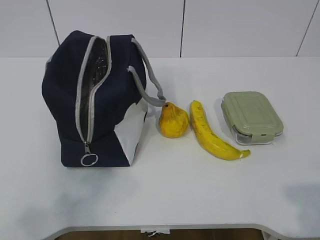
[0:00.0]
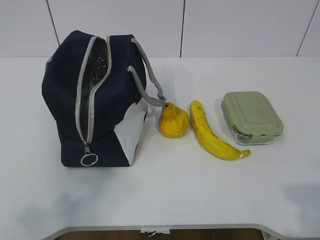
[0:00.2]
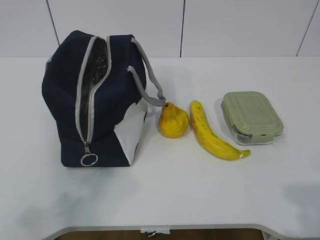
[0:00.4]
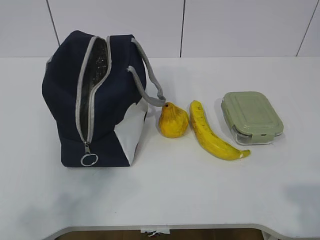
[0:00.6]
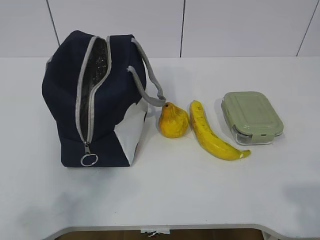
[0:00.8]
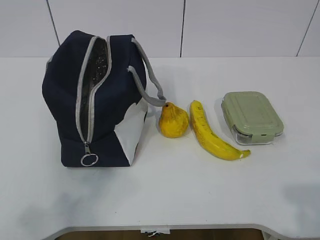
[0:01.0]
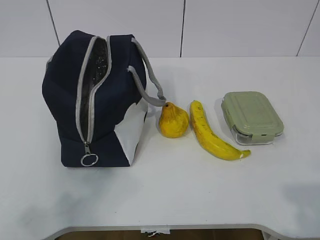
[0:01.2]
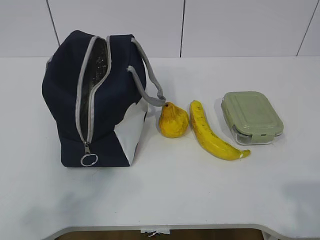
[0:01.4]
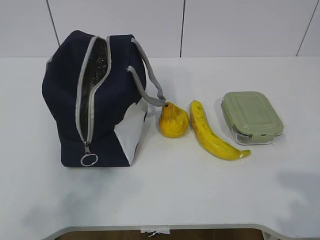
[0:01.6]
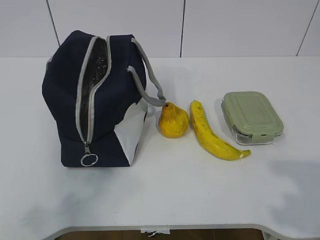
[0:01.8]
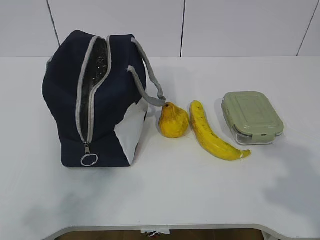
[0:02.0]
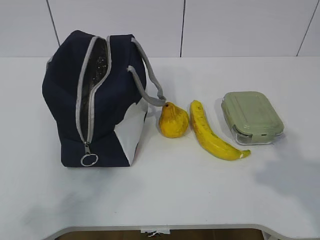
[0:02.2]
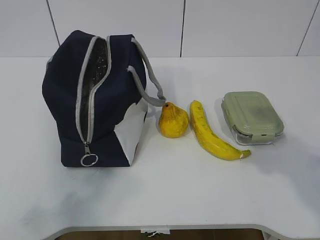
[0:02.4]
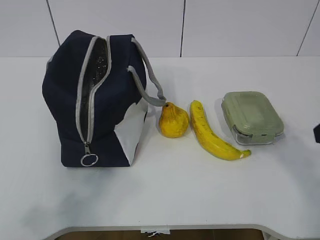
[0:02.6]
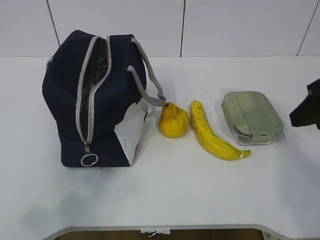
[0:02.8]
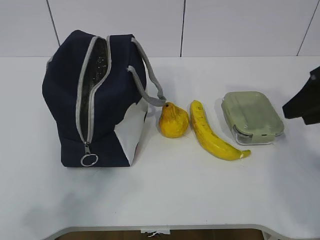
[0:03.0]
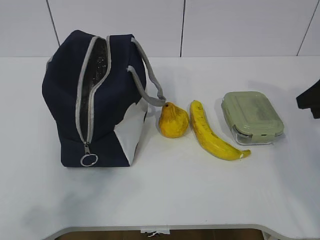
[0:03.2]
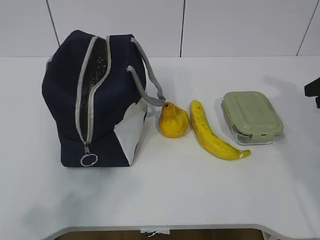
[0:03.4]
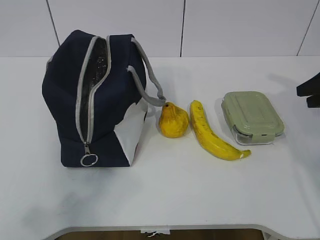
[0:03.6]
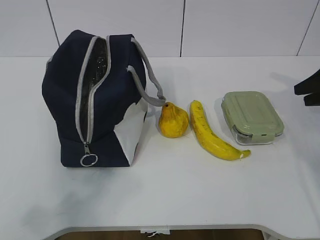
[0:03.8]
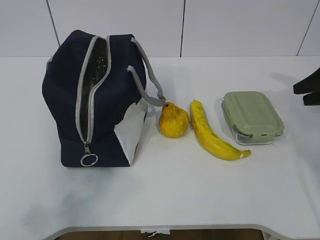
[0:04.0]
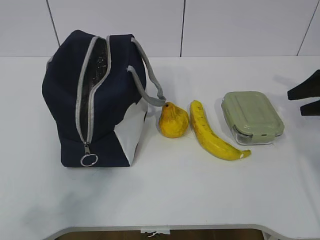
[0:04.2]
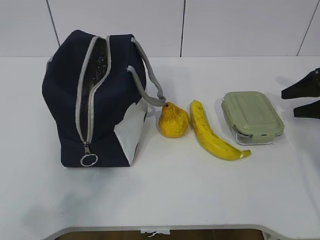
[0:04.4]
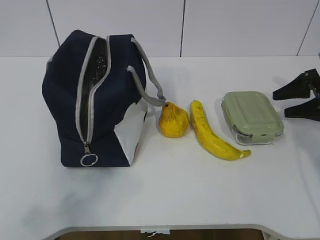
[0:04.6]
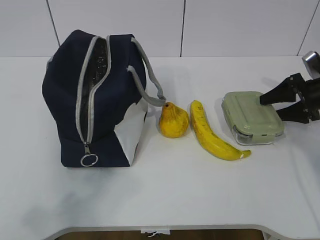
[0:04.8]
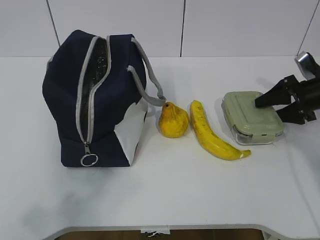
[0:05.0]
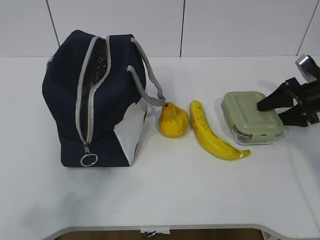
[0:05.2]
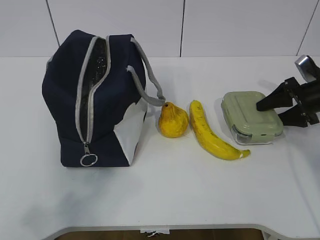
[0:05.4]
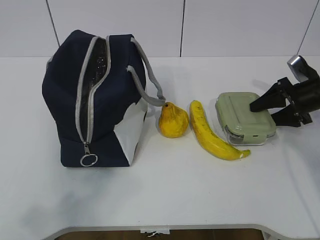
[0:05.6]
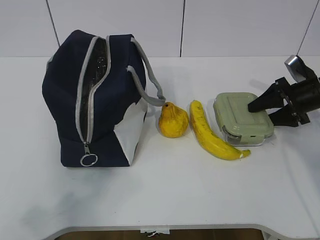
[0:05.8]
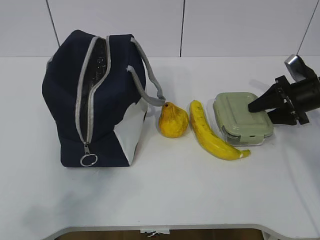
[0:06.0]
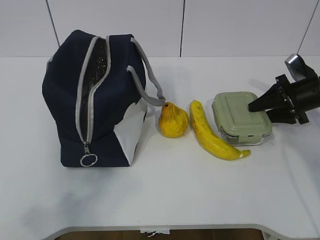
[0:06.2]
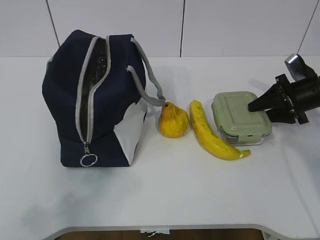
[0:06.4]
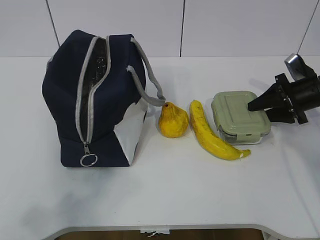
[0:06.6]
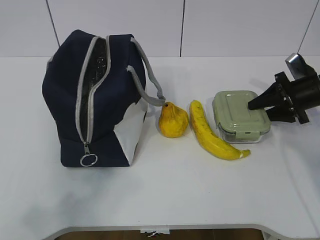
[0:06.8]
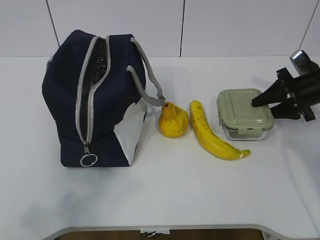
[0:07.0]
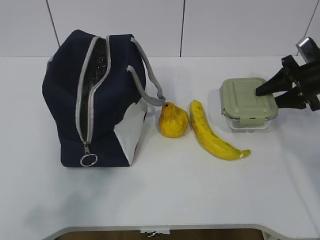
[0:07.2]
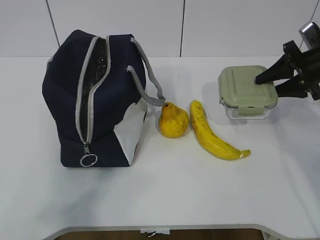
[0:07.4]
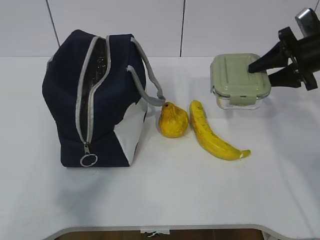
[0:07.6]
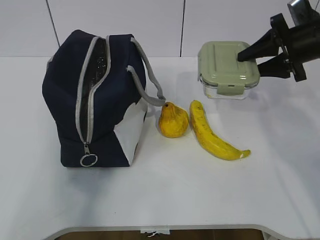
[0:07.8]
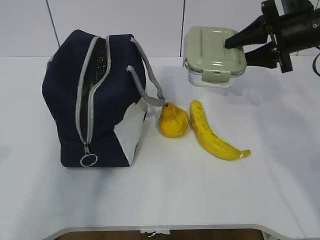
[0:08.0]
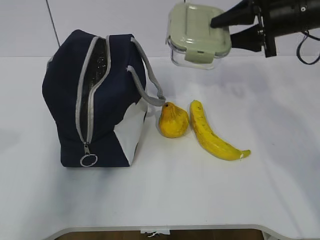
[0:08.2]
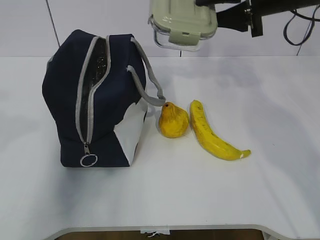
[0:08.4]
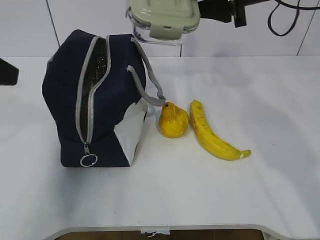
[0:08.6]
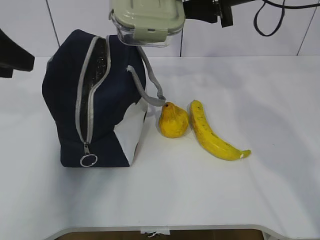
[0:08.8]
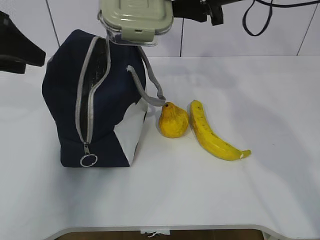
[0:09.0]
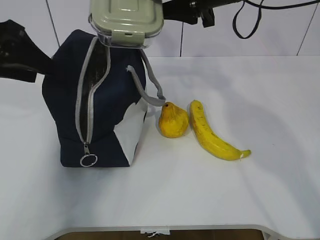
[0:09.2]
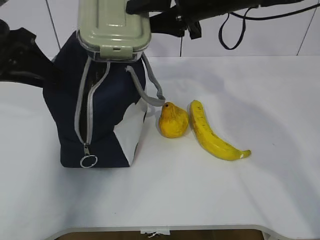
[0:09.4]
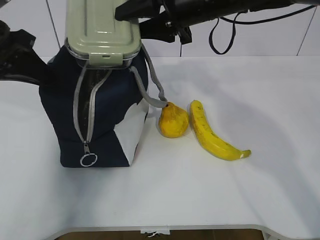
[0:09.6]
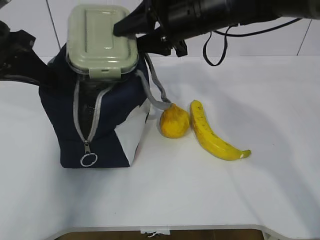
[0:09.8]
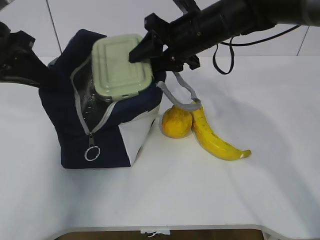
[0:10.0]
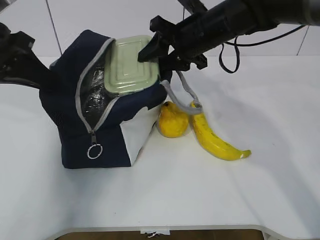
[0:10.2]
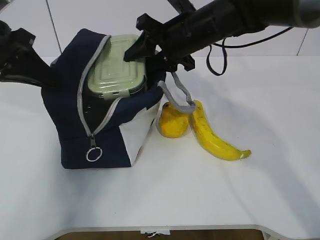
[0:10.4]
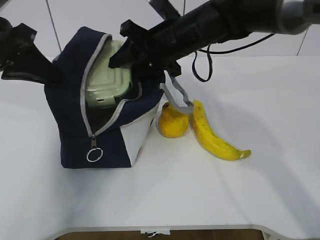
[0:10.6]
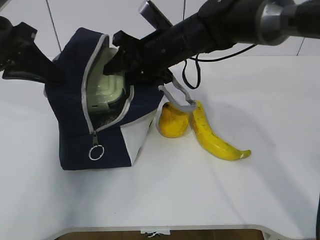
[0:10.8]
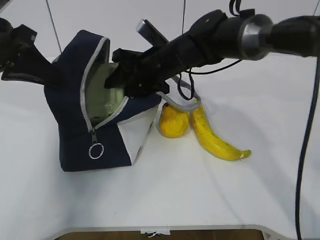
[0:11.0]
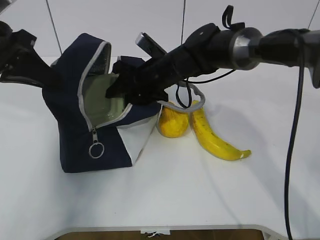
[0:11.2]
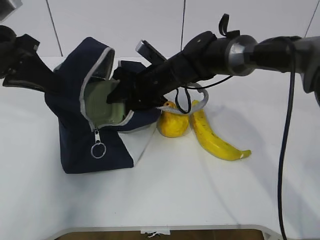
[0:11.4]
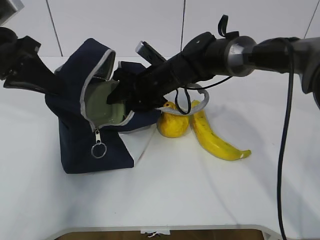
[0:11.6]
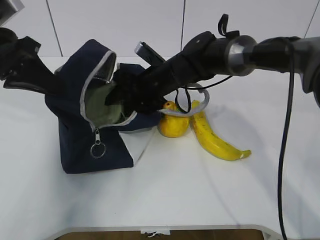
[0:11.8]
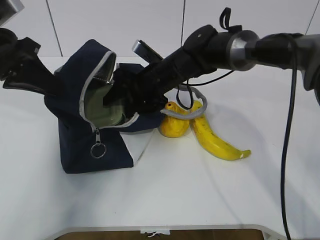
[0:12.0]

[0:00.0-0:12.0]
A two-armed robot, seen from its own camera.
Step, 0:00.0 to 0:05.6: Grab the lunch box with your right hand.
Step, 0:05.8 to 0:08.0: Grab the lunch bag with your left hand.
Step, 0:08.2 to 0:10.0: Place it into the bag with your right hand.
0:01.6 to 0:03.0: The right gripper shifts roughly 25 cm forward.
0:03.0 to 0:04.4: The right gripper is displaced forward, to the right and downward by roughly 20 cm.
0:04.4 to 0:06.0: The right gripper goes about 5 cm to the left.
0:06.0 to 0:07.6: The right gripper shifts about 10 cm upward.
0:07.6 to 0:09.0: The right gripper heads to the left and upward, covering roughly 20 cm. Meanwhile the left gripper goes approximately 30 cm forward, and opens its fingers.
0:09.0 to 0:10.4: The left gripper closes its fingers. The right gripper goes approximately 10 cm downward and to the left.
0:10.4 to 0:12.0: The right gripper heads downward, covering roughly 10 cm.

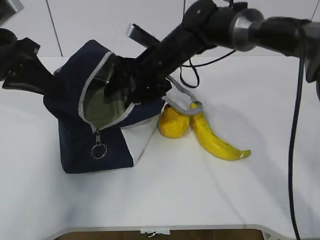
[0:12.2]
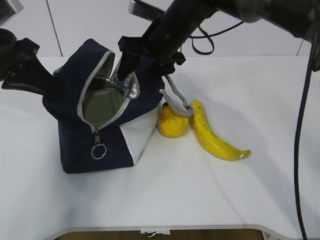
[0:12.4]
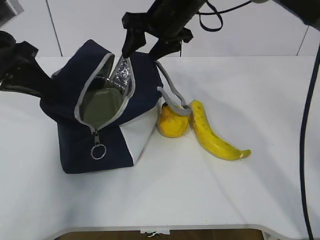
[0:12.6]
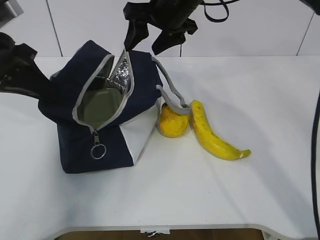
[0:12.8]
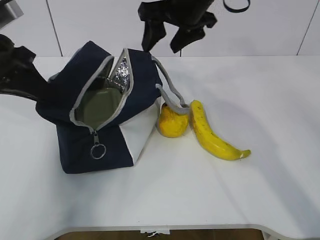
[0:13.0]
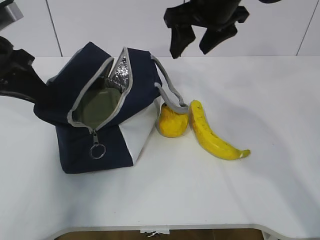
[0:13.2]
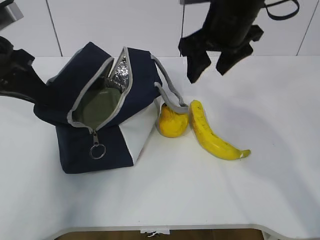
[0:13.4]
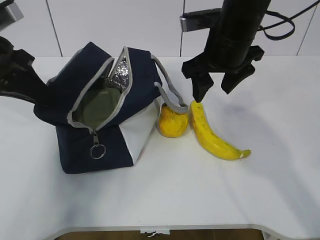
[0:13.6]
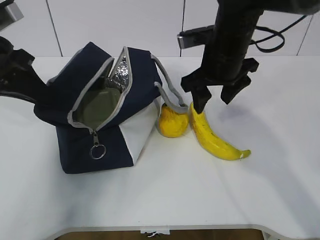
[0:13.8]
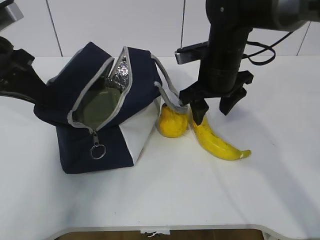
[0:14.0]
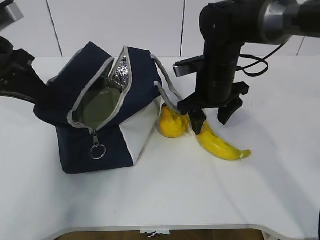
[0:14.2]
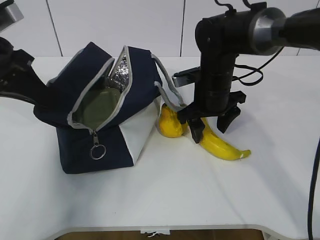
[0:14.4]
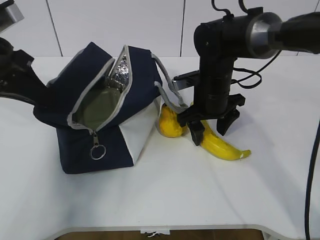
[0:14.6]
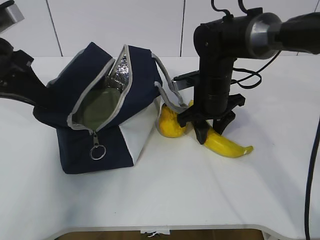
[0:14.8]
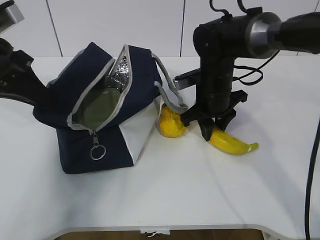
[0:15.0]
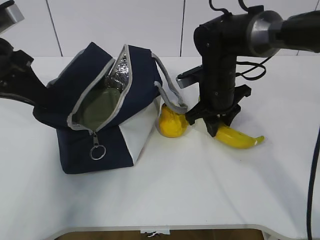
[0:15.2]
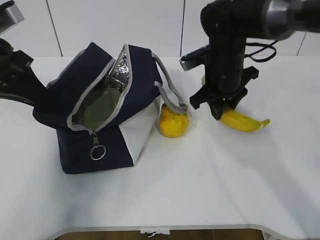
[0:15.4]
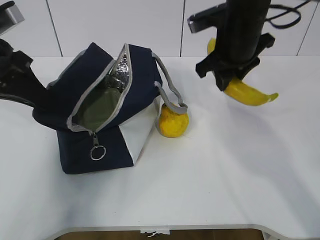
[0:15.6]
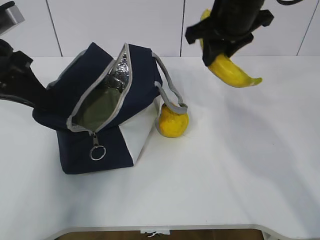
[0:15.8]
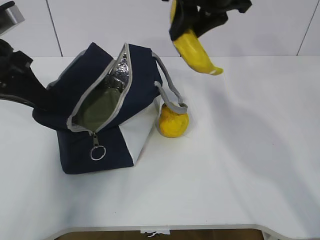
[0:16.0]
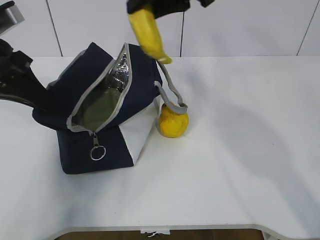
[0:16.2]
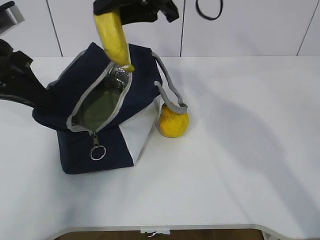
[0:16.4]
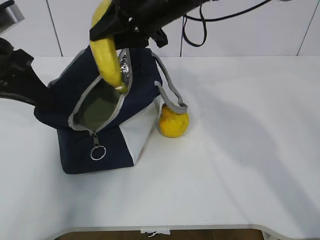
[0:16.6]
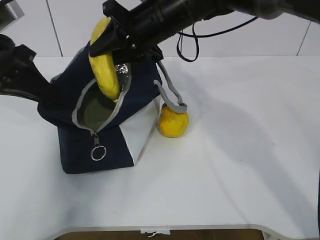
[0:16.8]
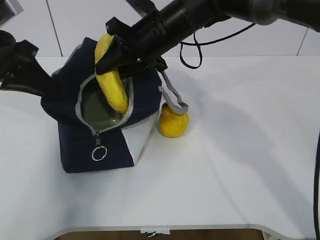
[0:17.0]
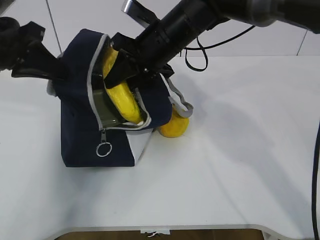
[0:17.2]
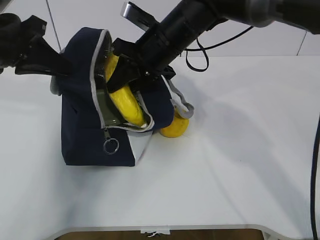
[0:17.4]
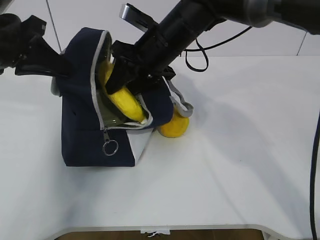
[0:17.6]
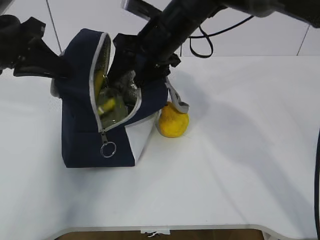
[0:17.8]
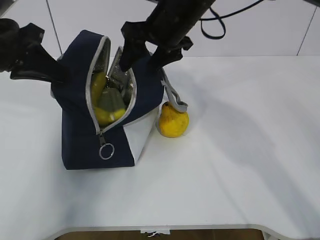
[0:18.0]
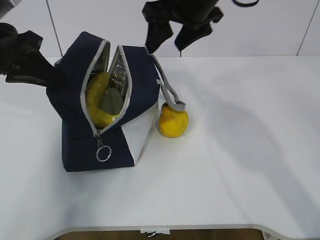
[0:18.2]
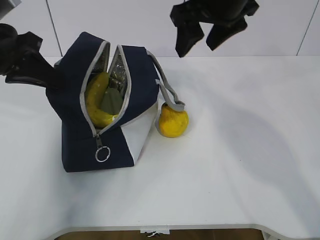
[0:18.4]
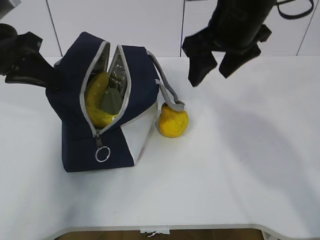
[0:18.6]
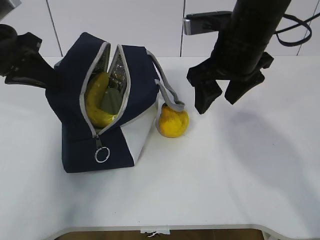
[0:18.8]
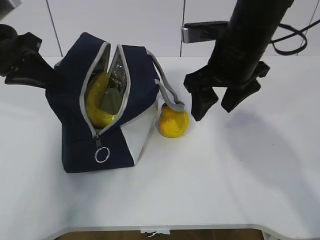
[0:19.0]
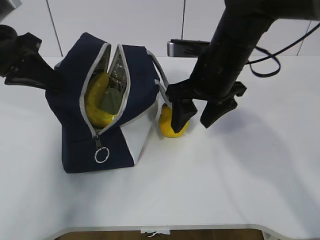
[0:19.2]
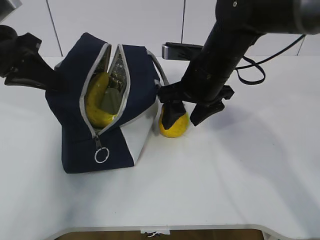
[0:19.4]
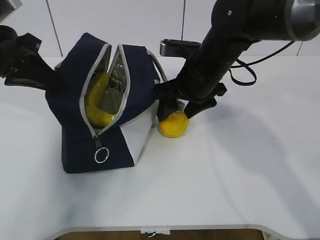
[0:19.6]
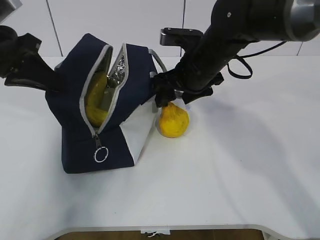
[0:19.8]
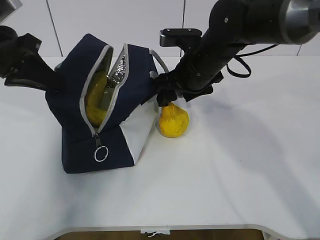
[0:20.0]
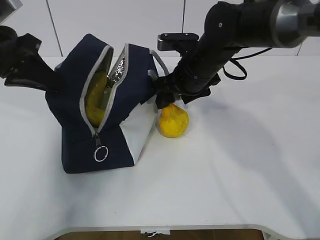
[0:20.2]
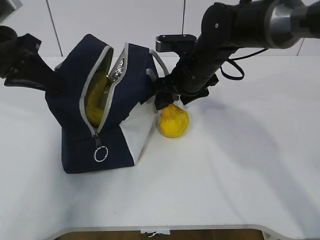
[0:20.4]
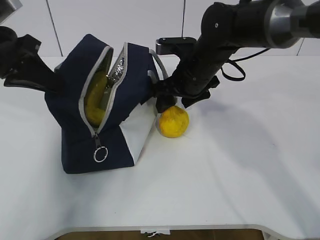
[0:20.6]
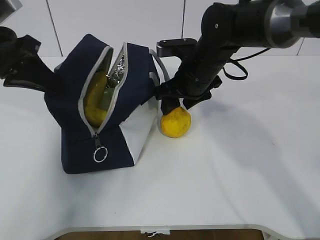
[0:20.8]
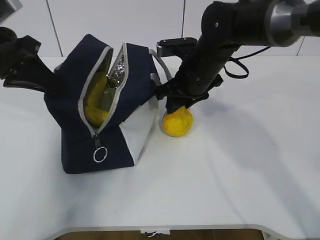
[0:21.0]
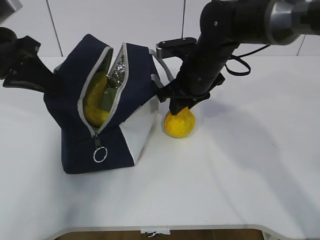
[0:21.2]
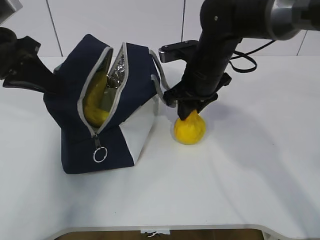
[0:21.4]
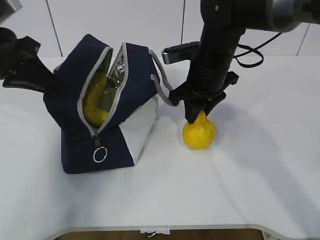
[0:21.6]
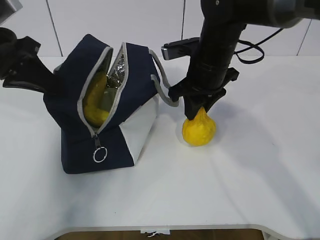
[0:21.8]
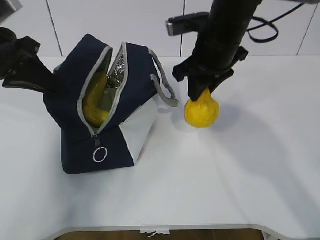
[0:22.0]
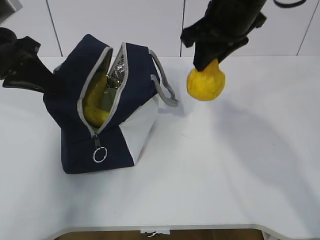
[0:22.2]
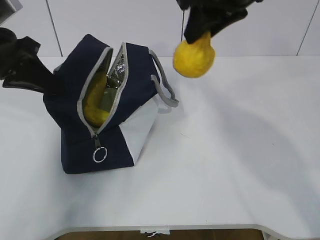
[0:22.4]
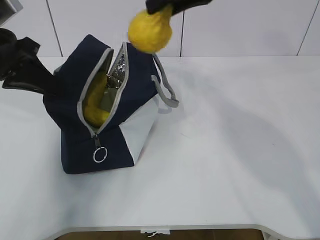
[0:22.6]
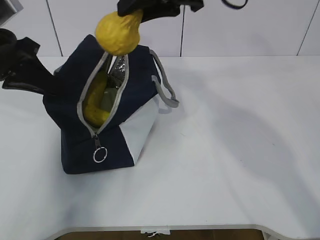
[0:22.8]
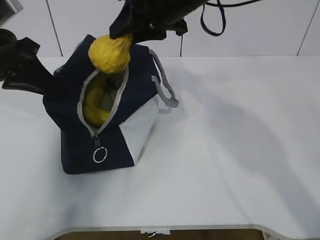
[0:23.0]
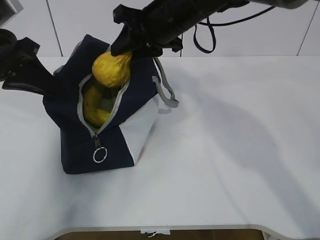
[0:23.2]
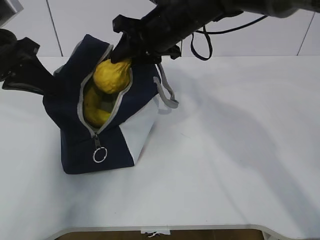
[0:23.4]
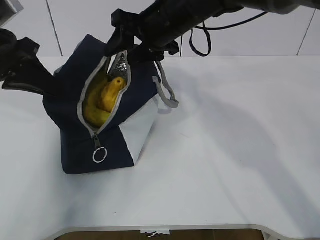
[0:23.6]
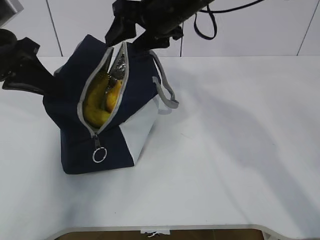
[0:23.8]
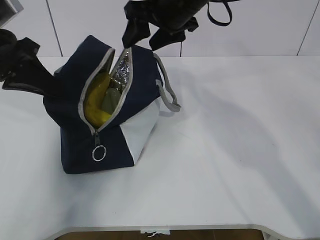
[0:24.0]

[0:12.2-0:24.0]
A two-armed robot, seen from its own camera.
Step, 0:12.6 to 0:15.0: Place it into the bag with your right hand.
Step, 0:15.2 to 0:17.6: Grab the pear with your right hand.
Step, 0:20.2 to 0:20.6: Grab the lunch bag with your right hand.
Step, 0:20.8 to 0:22.0: Move the lunch bag to the right.
0:12.2 to 0:13.6: The right gripper heads to the right, upward and backward, covering approximately 15 cm.
0:13.6 to 0:15.2: The right gripper moves downward, roughly 10 cm, and closes.
0:15.2 to 0:16.6: The right gripper moves upward and to the left, about 15 cm.
0:16.6 to 0:18.2: The right gripper reaches approximately 5 cm downward, then returns, and opens.
0:18.2 to 0:19.6: The right gripper is displaced downward by approximately 10 cm.
0:19.6 to 0:21.0: The right gripper closes its fingers.
0:21.0 to 0:22.6: The right gripper is displaced upward by roughly 20 cm.
0:22.6 to 0:24.0: The right gripper heads downward and forward, covering some 10 cm, and opens up.
